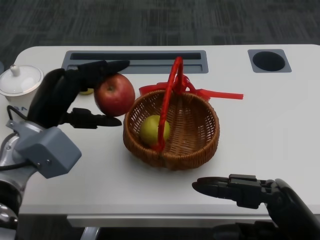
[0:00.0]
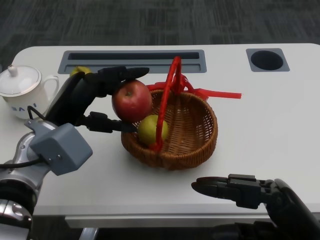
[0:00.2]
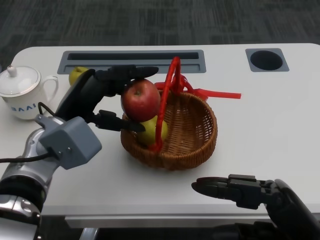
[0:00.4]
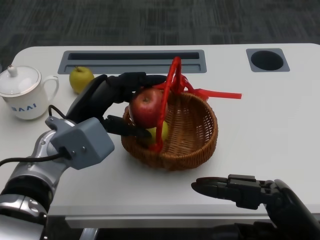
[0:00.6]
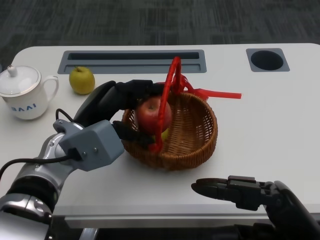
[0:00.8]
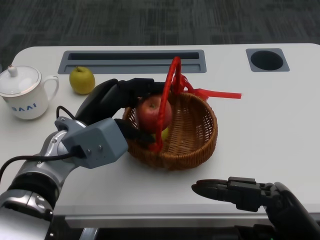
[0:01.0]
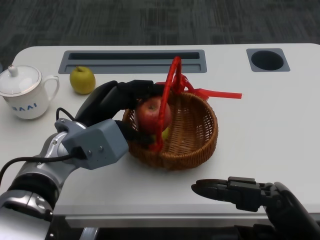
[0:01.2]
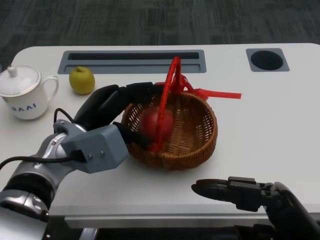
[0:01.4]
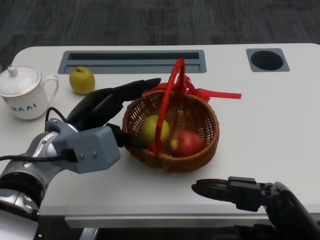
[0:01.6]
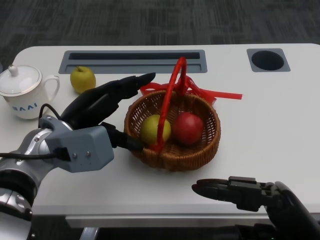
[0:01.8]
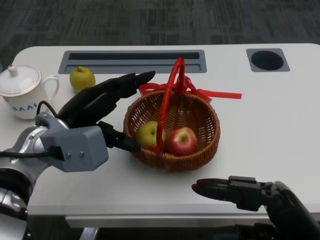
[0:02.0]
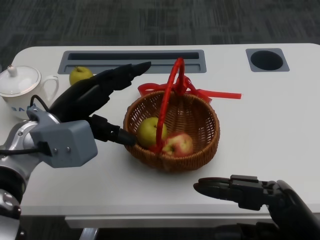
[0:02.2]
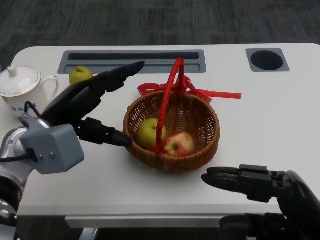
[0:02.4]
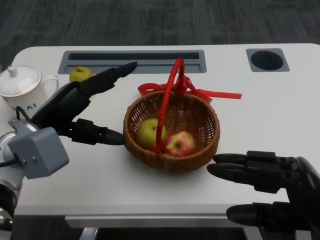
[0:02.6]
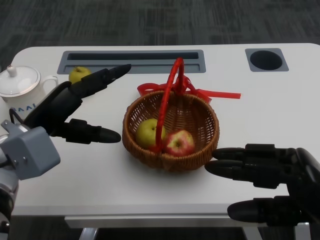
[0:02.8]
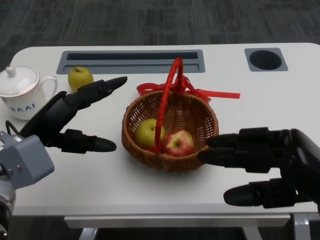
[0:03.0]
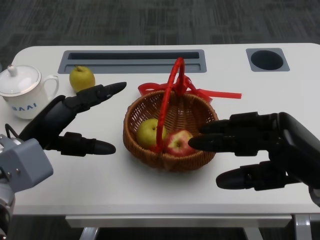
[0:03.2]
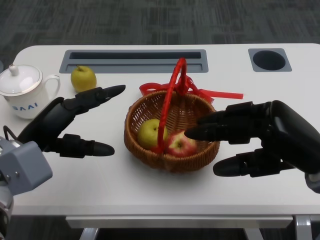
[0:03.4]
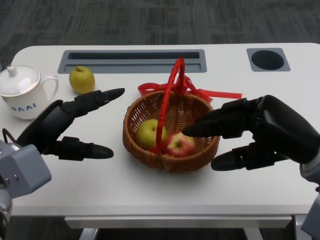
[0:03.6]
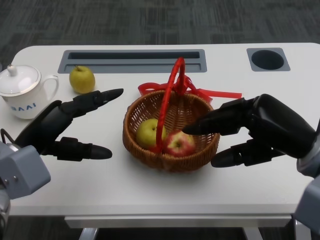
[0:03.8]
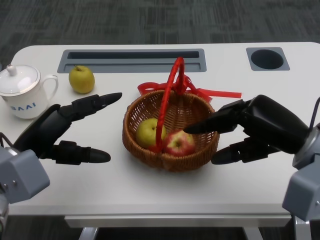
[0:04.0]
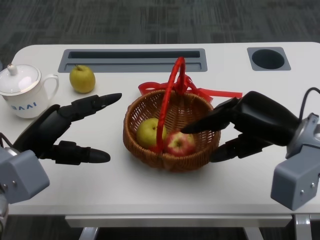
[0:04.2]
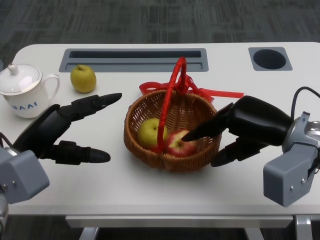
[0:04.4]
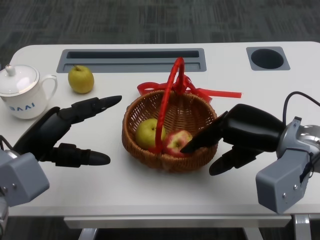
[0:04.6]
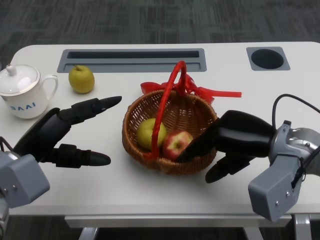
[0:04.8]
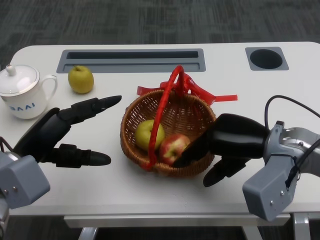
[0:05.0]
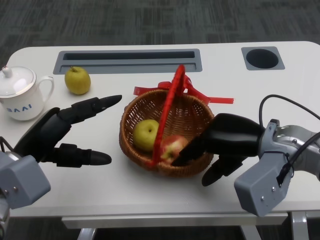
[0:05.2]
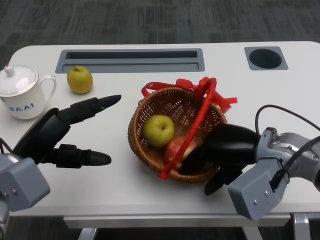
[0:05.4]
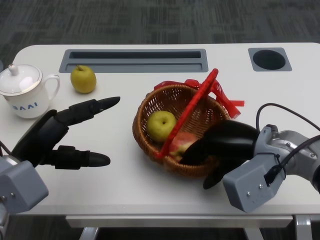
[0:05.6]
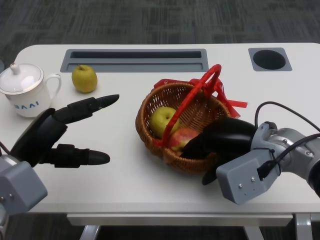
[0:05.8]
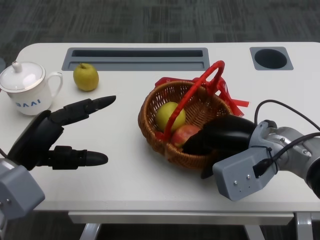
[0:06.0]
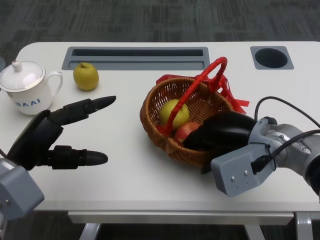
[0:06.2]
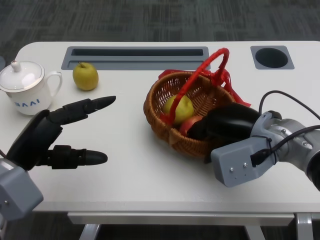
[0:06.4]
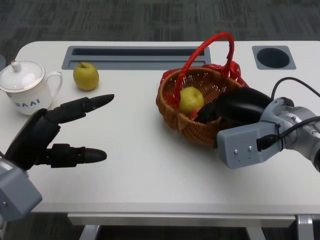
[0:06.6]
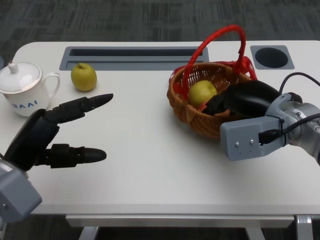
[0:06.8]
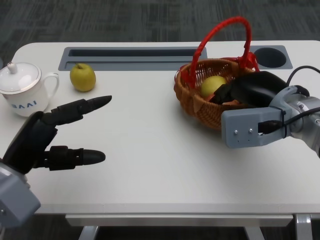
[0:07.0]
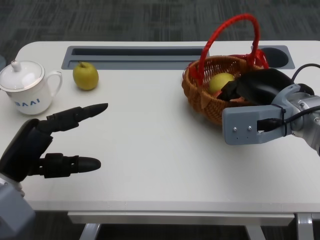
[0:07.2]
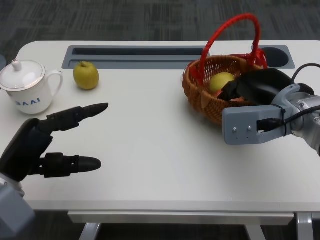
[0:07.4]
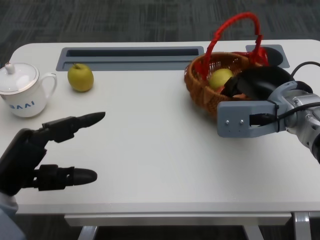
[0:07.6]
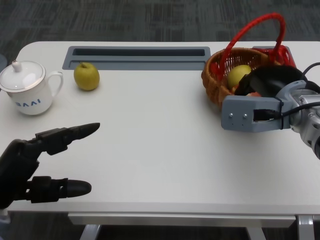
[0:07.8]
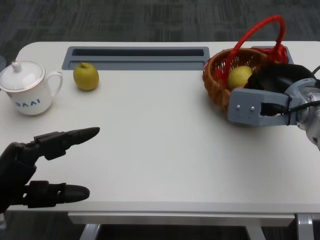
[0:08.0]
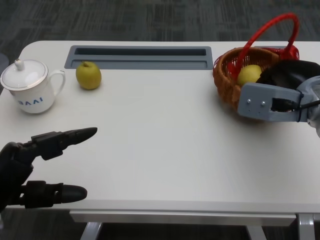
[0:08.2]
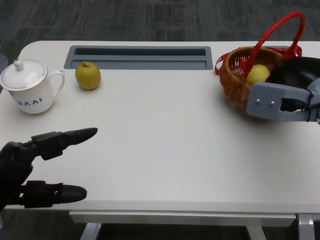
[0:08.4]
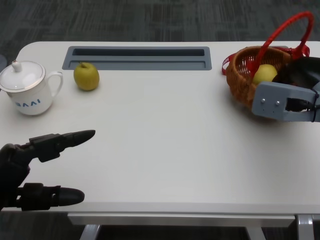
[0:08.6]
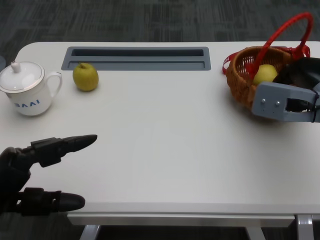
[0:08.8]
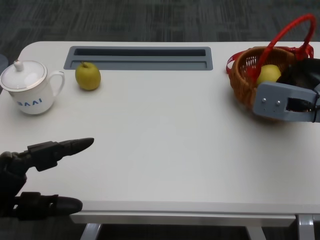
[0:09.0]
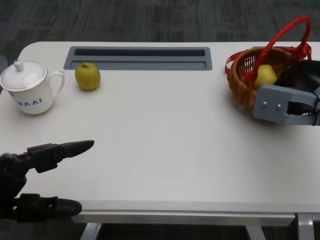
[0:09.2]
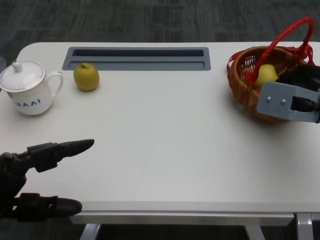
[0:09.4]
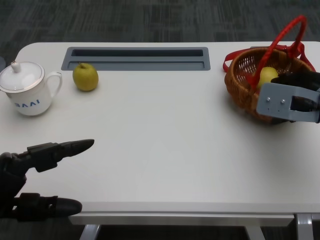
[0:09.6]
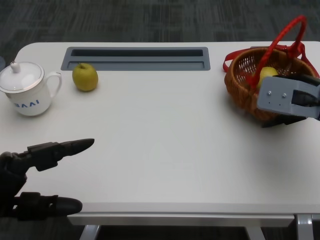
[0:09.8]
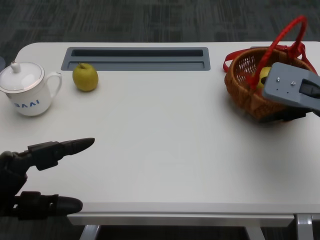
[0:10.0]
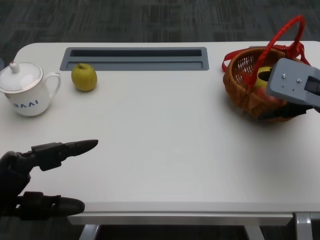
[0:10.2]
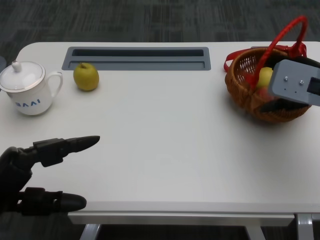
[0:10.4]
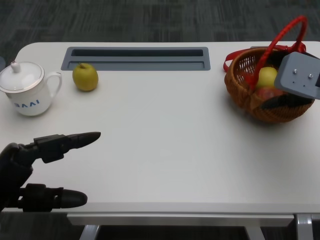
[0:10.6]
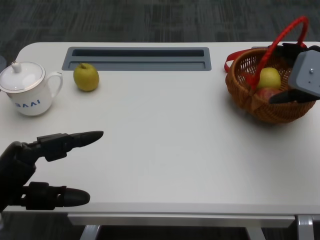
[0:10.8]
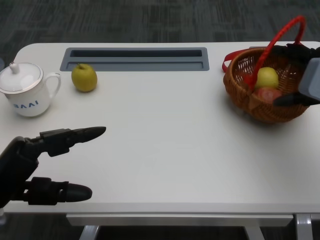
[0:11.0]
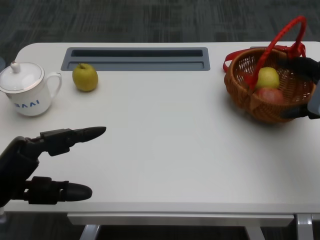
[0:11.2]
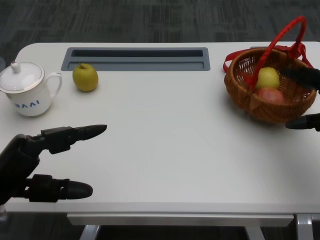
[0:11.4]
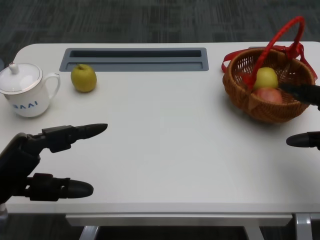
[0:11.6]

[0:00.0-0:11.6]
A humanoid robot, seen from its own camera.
Step, 0:00.6 to 0:03.6: Grasp the basket with the right gripper.
Step, 0:04.0 to 0:07.0: Move the basket to the front of the table with the right gripper.
0:00.0 to 0:01.4: The left hand goes some 5 cm to the right.
0:01.4 to 0:02.8: The left hand goes some 5 cm to the left.
0:02.8 to 0:04.4: The right hand shifts roughly 15 cm forward.
0:05.8 to 0:07.2: The right hand moves roughly 5 cm.
0:07.2 to 0:08.8: The left hand moves backward, some 5 cm, while the right hand shifts some 5 cm to the right.
0:10.2 to 0:11.6: The right hand shifts approximately 10 cm backward and to the right.

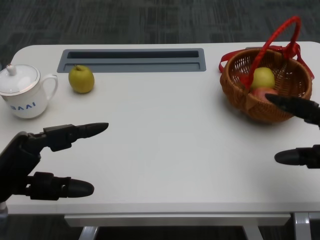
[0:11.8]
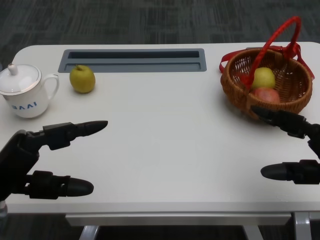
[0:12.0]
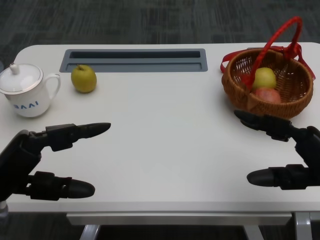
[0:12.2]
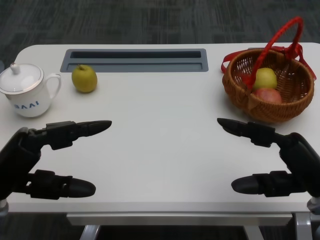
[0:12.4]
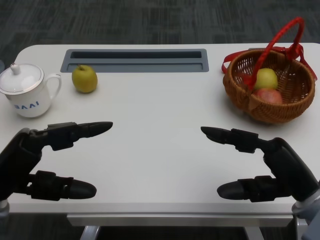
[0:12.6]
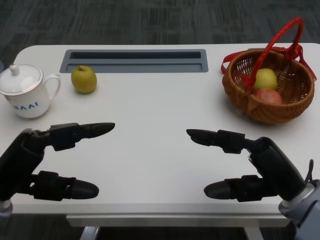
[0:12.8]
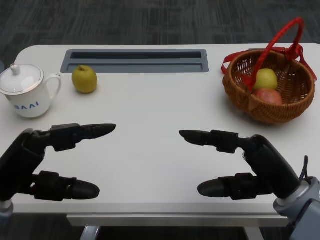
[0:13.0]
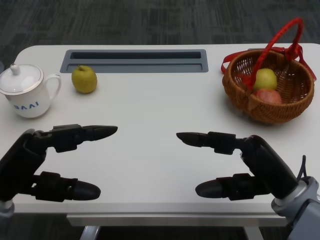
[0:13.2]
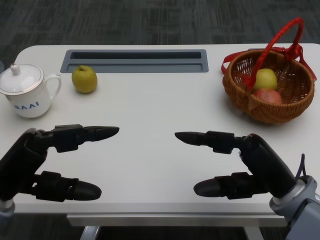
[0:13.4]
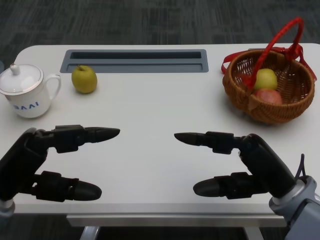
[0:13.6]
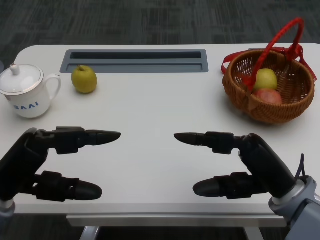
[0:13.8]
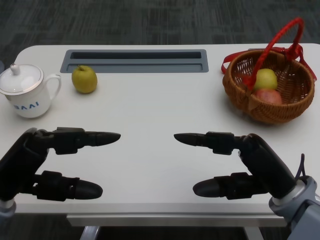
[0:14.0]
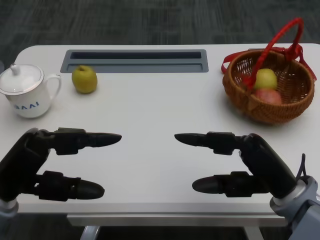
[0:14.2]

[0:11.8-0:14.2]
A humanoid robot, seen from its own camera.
0:11.8 to 0:13.0: The right hand heads to the left, covering roughly 10 cm.
0:13.0 to 0:14.2: Both hands stay about where they are.
